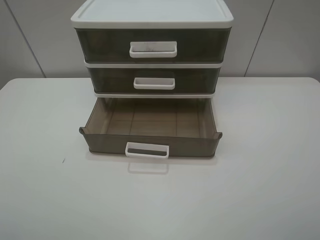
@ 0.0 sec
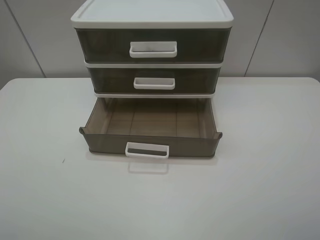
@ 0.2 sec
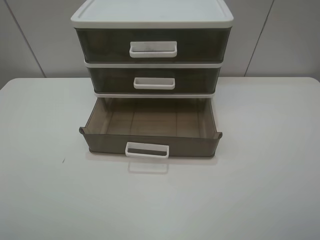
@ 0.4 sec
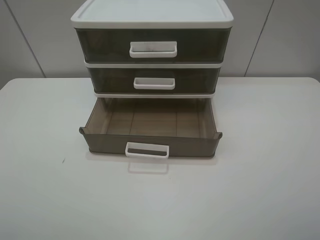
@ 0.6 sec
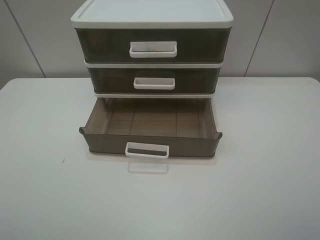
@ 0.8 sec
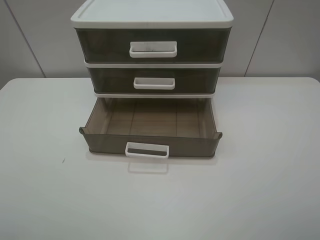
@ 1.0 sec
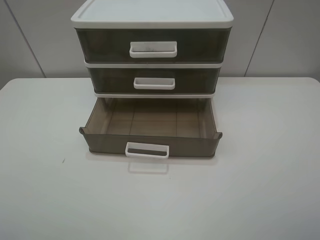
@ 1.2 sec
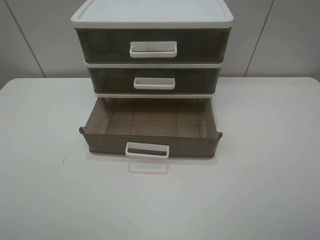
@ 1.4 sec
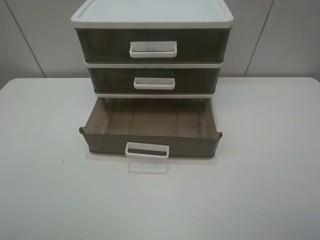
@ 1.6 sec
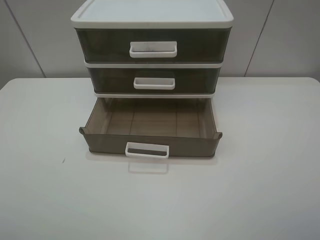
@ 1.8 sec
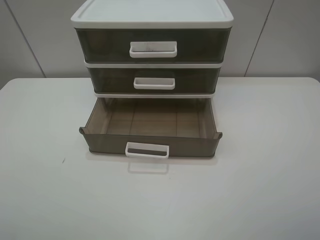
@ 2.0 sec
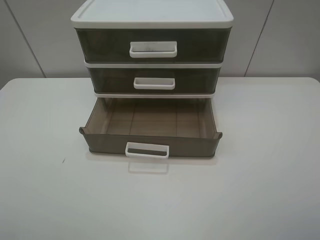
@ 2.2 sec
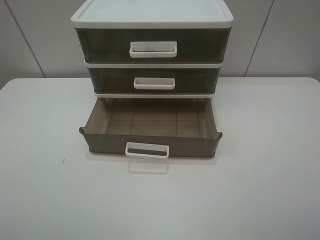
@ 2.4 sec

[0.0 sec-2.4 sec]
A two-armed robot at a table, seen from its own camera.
Task of the whole recording: open the bottom drawer.
1.2 sec to 2.4 sec: Both grippers stay put.
